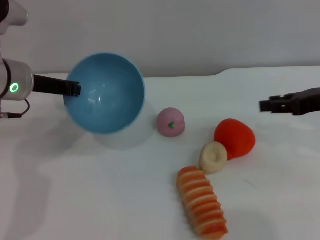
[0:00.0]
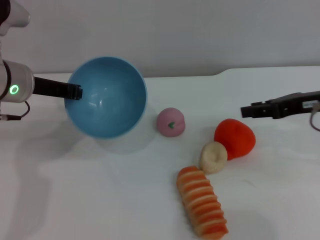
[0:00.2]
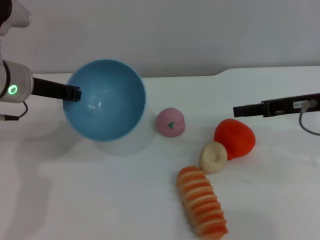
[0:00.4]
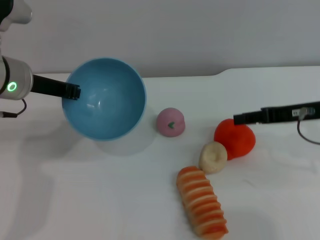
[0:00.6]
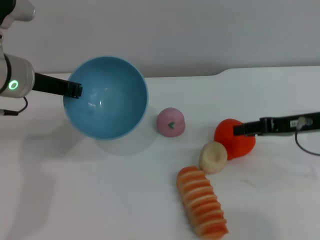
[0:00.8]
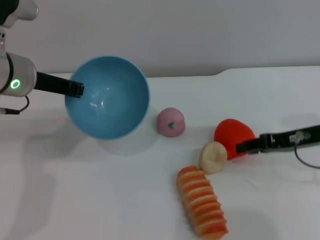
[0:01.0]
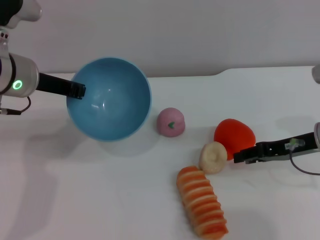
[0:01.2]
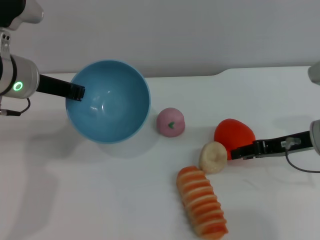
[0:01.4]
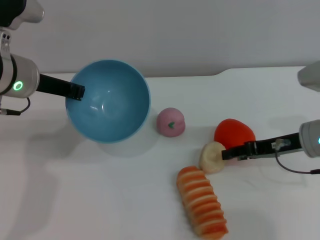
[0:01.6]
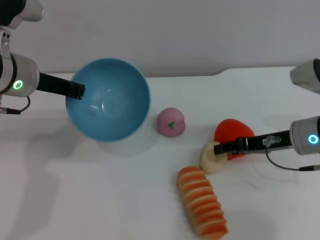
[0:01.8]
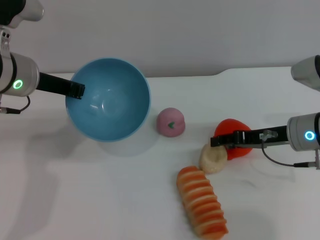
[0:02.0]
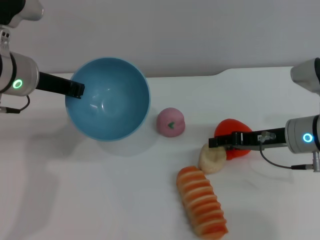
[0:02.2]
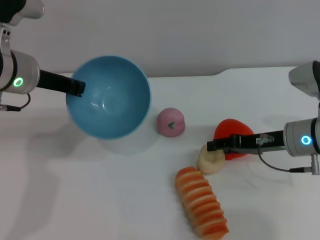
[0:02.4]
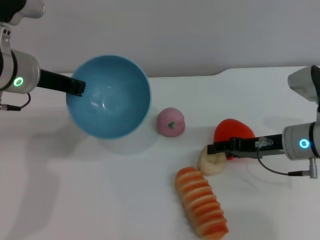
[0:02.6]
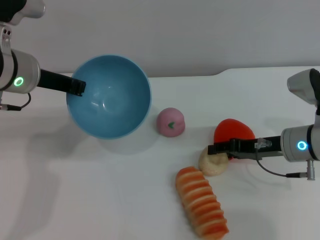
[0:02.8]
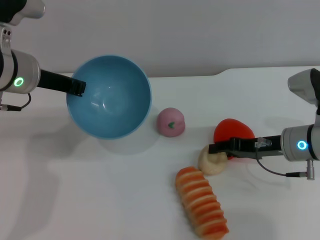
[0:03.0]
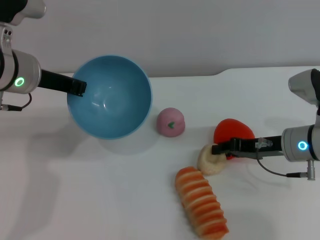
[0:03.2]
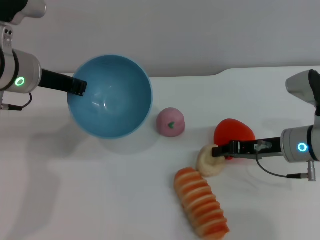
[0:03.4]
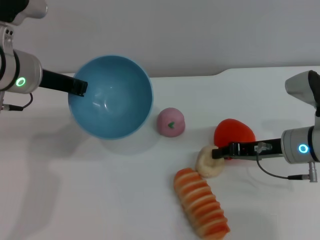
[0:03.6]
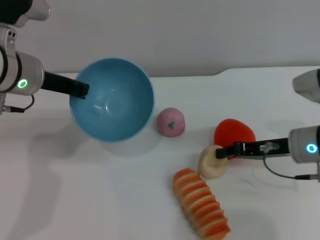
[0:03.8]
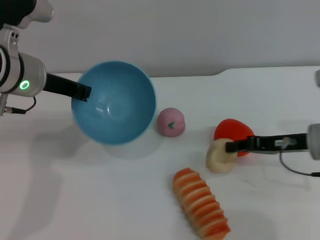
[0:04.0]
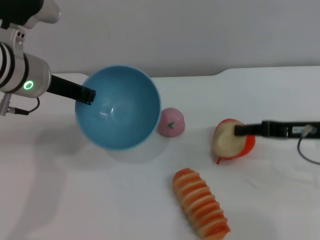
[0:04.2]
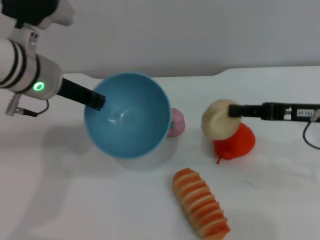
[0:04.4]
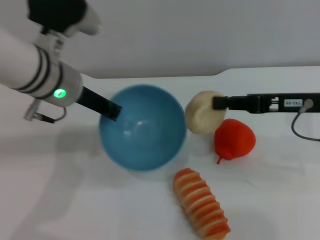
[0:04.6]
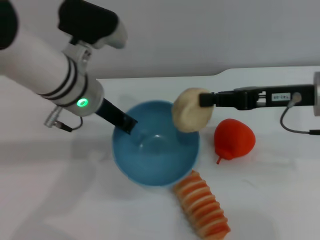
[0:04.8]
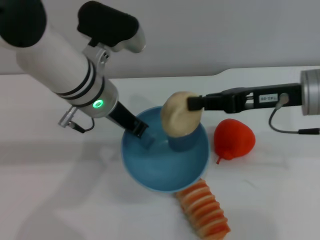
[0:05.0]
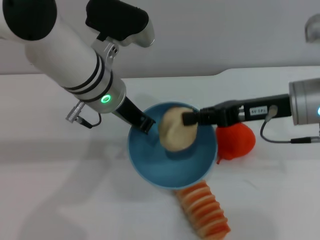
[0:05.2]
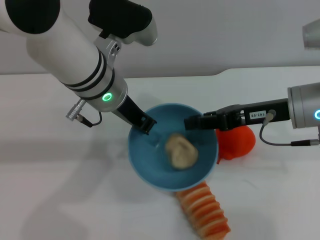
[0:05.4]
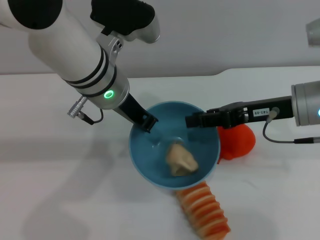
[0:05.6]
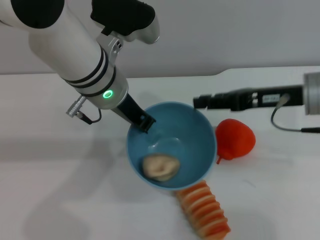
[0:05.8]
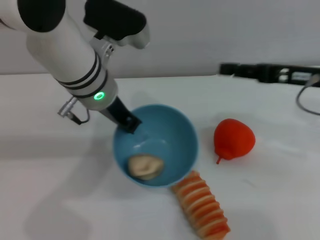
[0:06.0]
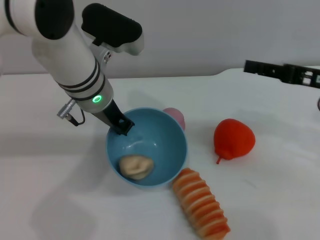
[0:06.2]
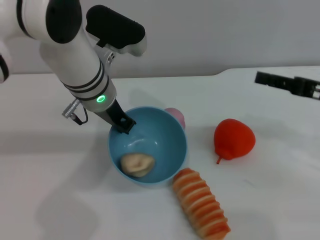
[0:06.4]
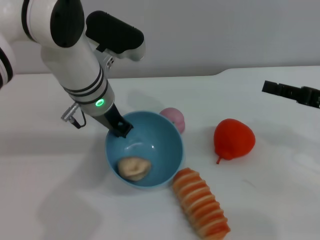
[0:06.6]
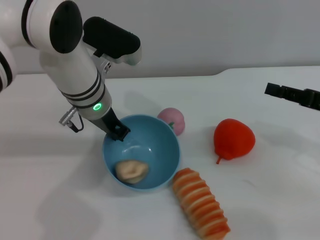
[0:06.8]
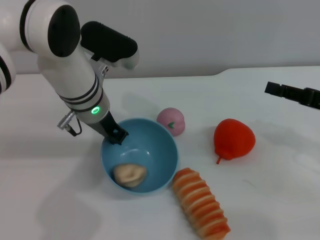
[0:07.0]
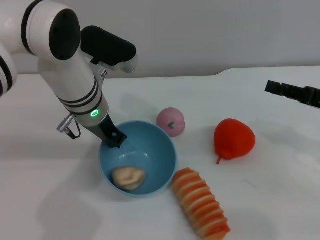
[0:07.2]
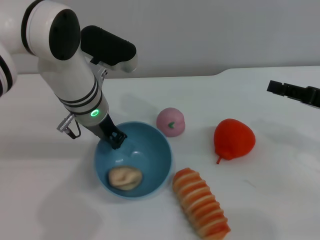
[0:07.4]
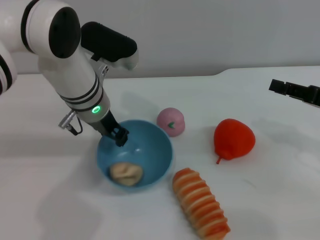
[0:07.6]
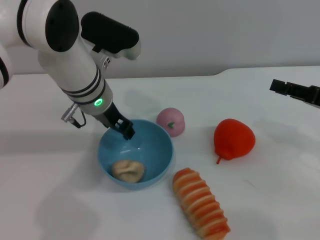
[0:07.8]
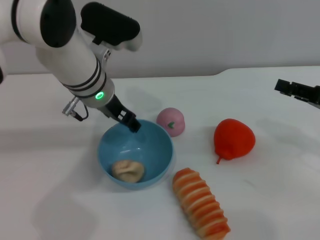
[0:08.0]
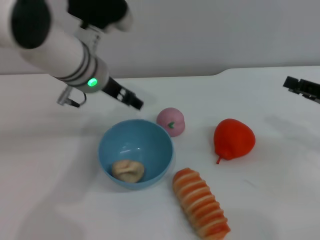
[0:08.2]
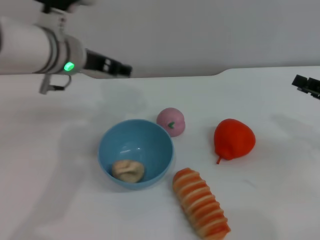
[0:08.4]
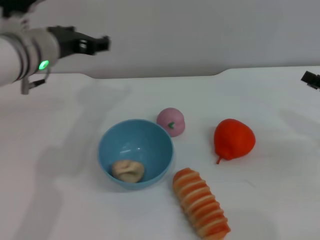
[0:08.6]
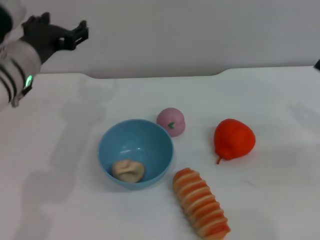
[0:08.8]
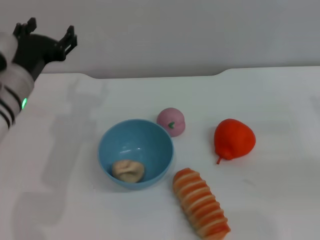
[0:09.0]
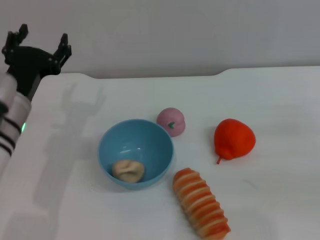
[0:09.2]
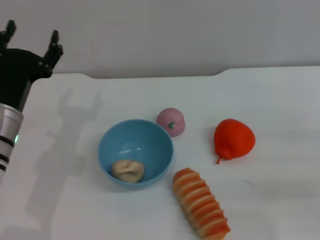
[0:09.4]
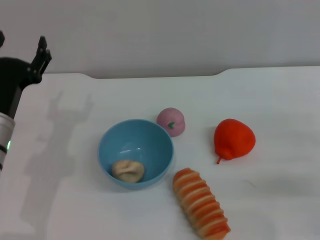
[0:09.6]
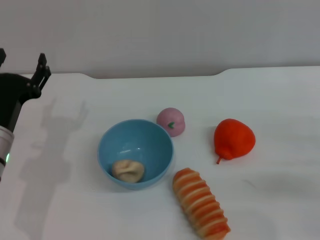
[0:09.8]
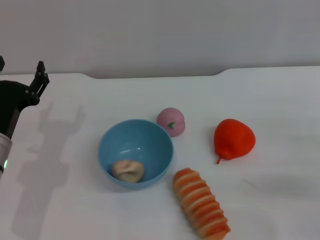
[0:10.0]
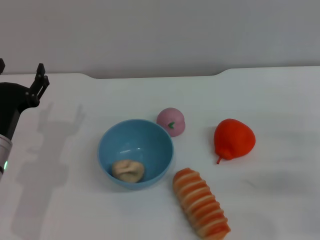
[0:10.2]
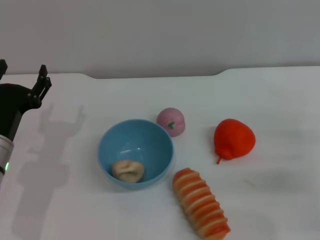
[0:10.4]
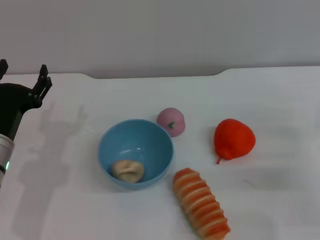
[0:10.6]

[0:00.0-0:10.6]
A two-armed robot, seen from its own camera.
Task of the whole recording: put the egg yolk pastry into the blue bowl and pour it out repeatedly.
Step, 0:00.0 to 0:04.2: Pick up the egg yolk pastry with the right gripper.
Step, 0:04.4 to 0:05.6: Place the egg yolk pastry into the bowl.
Step, 0:05.8 to 0:08.2: Place the bowl on the table.
0:00.0 to 0:01.6: The right gripper goes roughly 10 cm downward and to the left.
0:01.6 to 0:03.0: There are only small adjustments of the grippers.
0:03.0 to 0:04.6: The right gripper shifts roughly 10 cm upward, and closes. Meanwhile the left gripper shifts roughly 5 cm to the right.
0:04.6 to 0:06.0: The left gripper moves to the right, about 5 cm. Meanwhile the right gripper opens up.
0:06.0 to 0:07.6: The left gripper moves about 5 cm; the right gripper goes about 5 cm to the right.
0:07.6 to 0:09.0: The left gripper goes some 10 cm to the left, and opens. Meanwhile the right gripper shifts by about 5 cm.
0:09.0 to 0:10.6: The left gripper heads downward and backward, covering roughly 10 cm.
